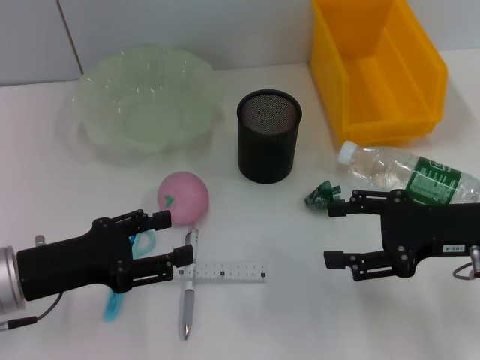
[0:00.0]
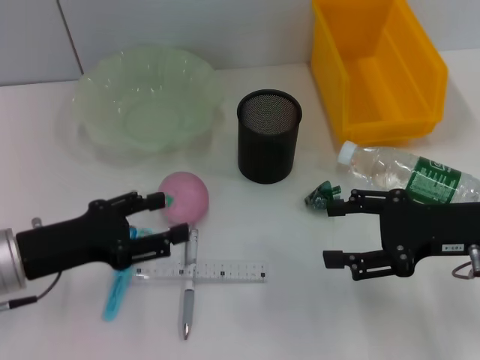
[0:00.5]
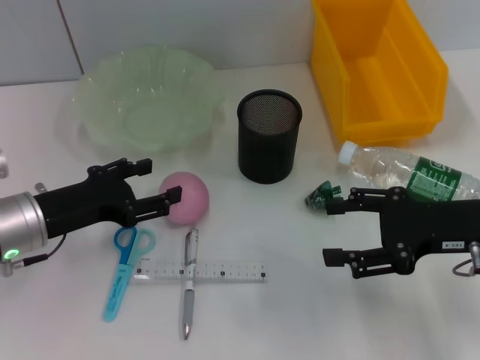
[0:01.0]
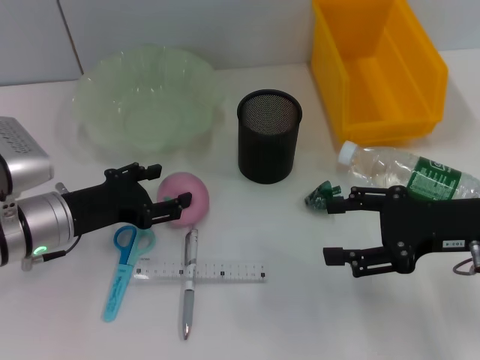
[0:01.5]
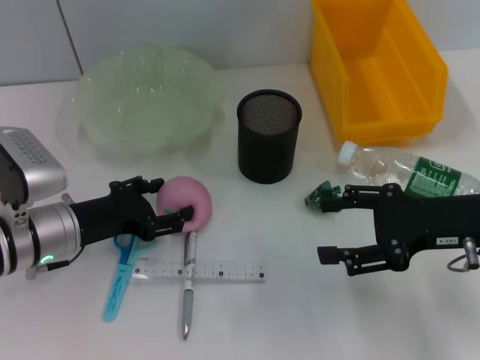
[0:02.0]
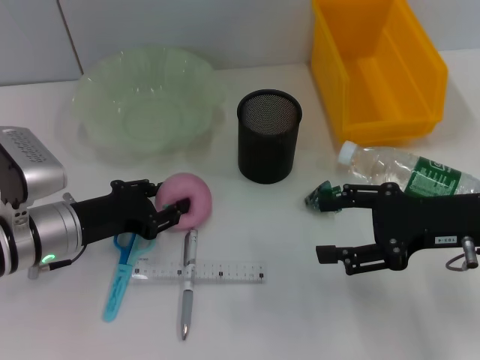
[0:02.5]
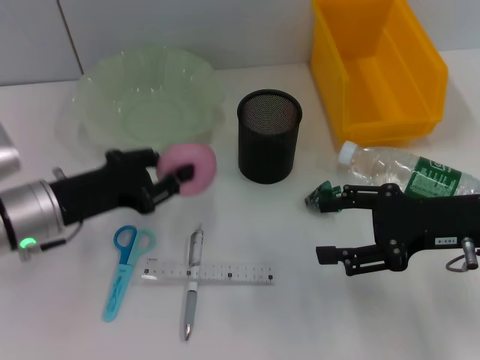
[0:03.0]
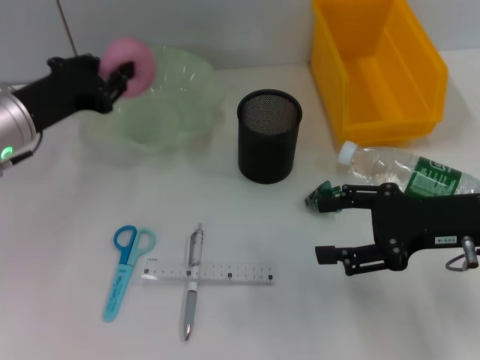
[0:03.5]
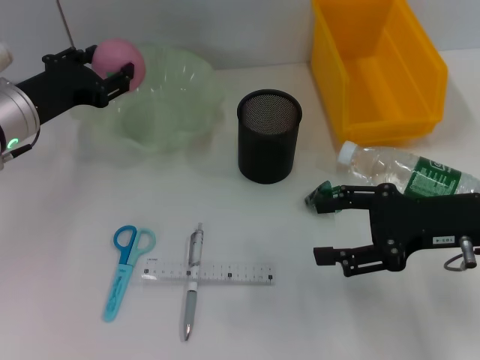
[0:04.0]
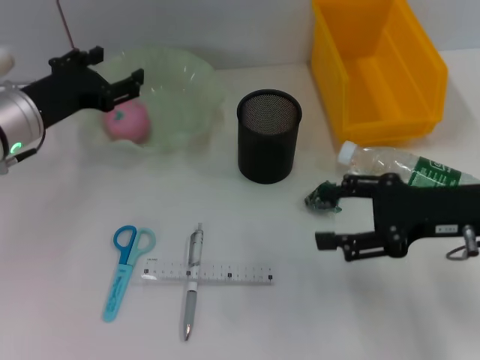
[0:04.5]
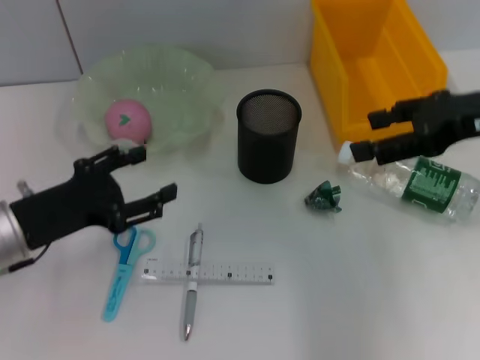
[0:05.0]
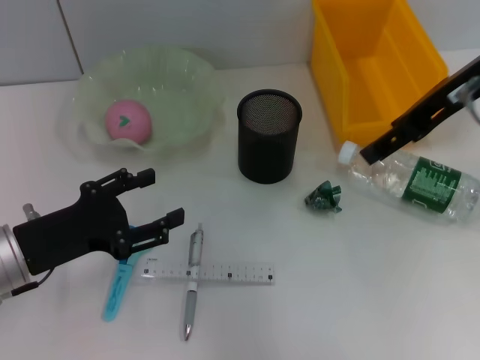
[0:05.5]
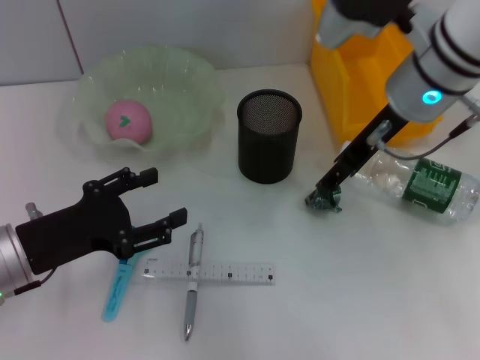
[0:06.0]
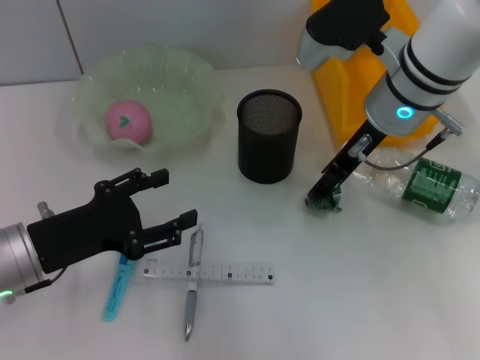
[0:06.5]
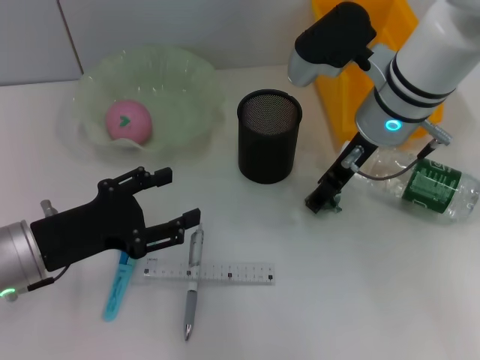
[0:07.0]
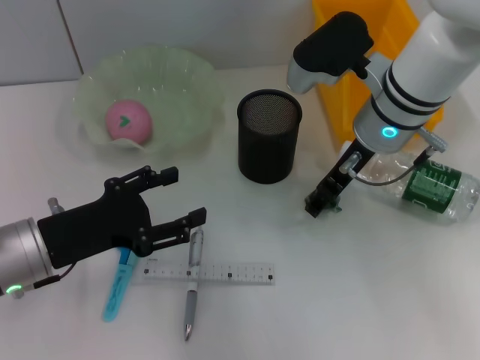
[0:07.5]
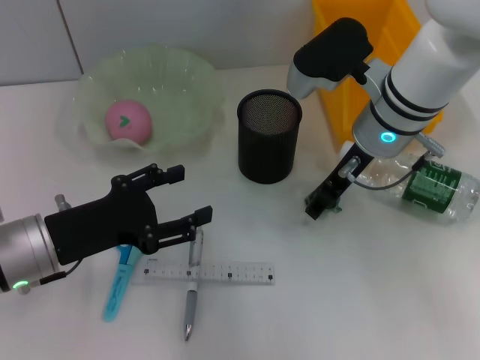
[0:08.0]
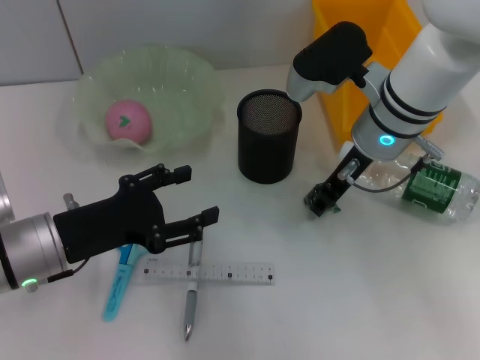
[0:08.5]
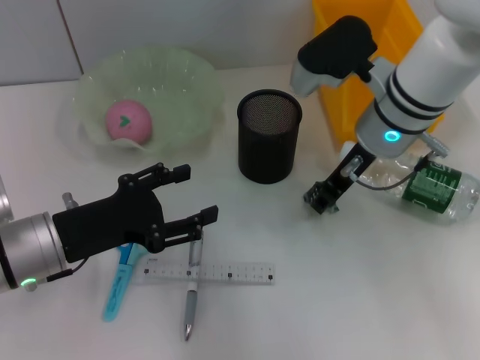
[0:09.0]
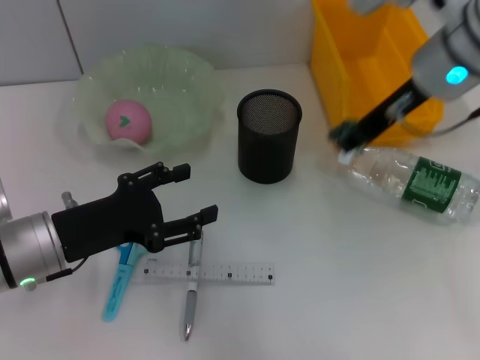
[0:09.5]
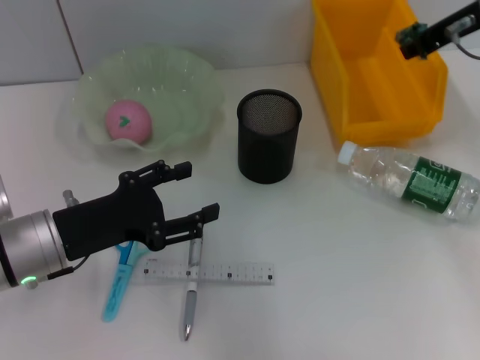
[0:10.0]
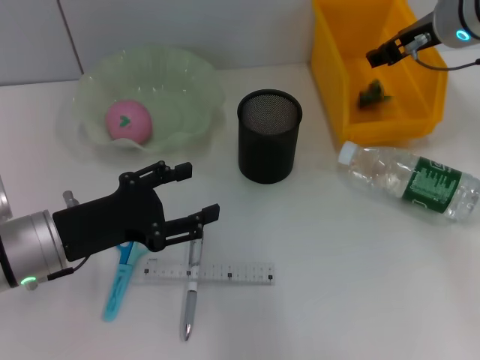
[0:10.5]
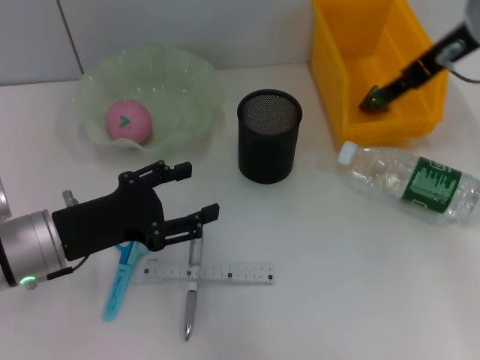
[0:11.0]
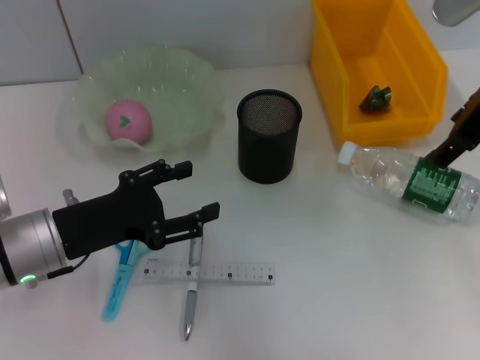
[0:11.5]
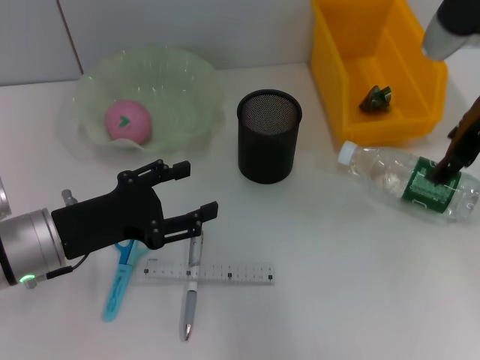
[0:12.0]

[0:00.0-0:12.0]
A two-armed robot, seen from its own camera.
Step, 0:00.0 to 0:02.0: Grab the peach with the left hand.
Step, 0:03.0 to 0:04.5: Place the peach into the fruit bowl with the left hand.
Step, 0:05.0 to 0:08.5: Grab the plastic with the right hand.
Step, 0:09.0 to 0:11.0: Place the plastic into the trash can with the right hand.
0:00.0 to 0:02.0: The left gripper shifts some 5 cm forward.
0:02.0 to 0:04.0: The left gripper is displaced forward and upward by roughly 10 cm, and closes up.
0:04.0 to 0:06.0: The left gripper heads backward, covering approximately 15 cm, and opens its fingers. Meanwhile the right gripper shifts some 15 cm to the left, forward and upward.
0:06.0 to 0:08.0: The right gripper is displaced downward by about 5 cm.
0:08.0 to 0:10.0: The right gripper is displaced upward and to the right by about 15 cm, and closes up.
0:10.0 to 0:12.0: The right gripper ends up about 5 cm from where it was, and opens.

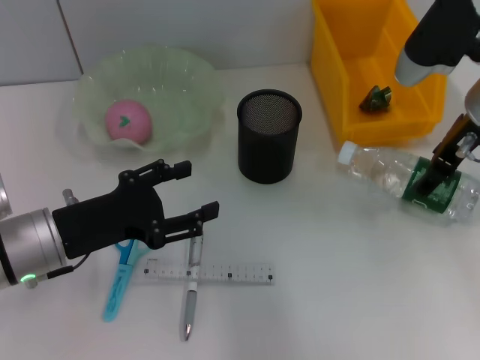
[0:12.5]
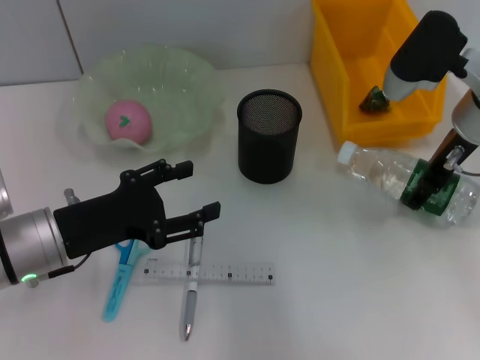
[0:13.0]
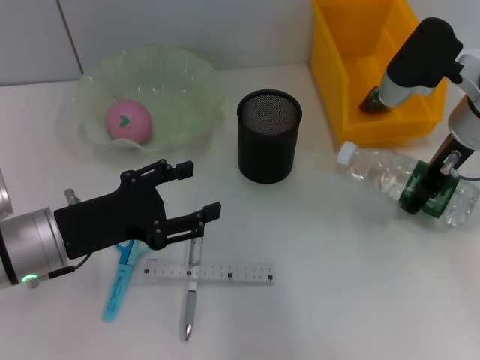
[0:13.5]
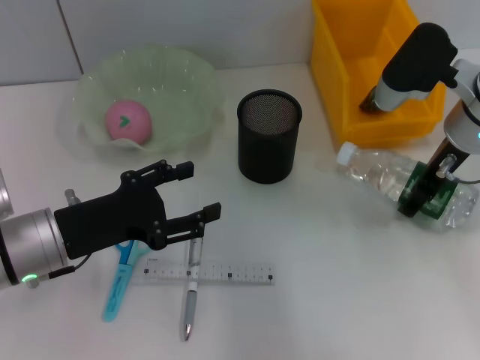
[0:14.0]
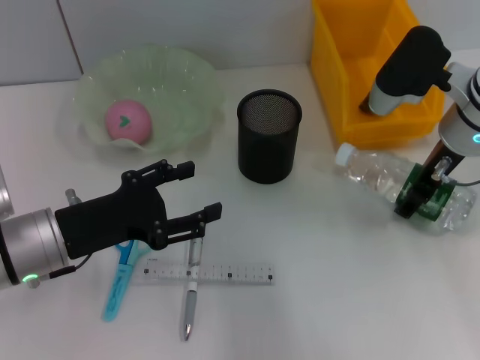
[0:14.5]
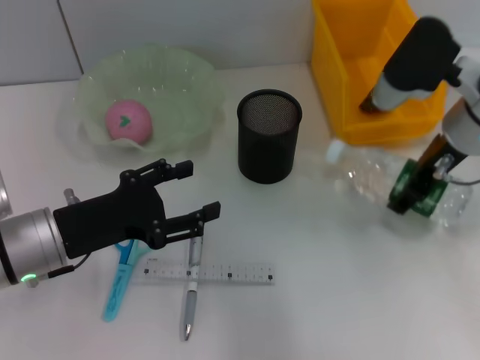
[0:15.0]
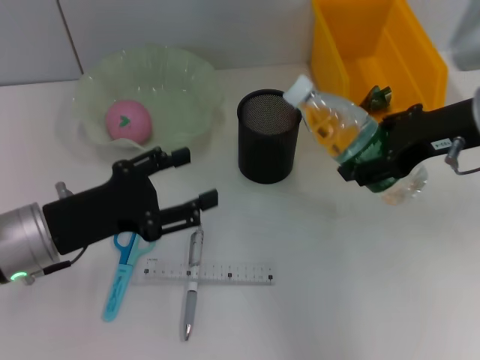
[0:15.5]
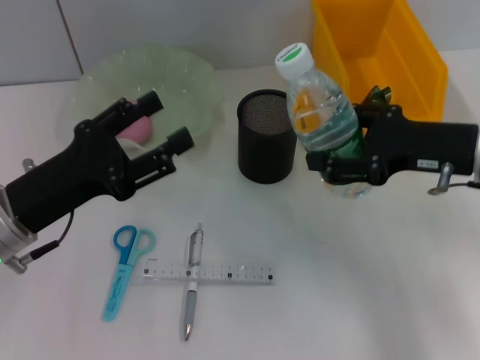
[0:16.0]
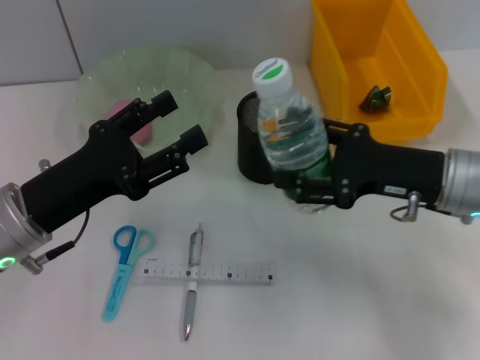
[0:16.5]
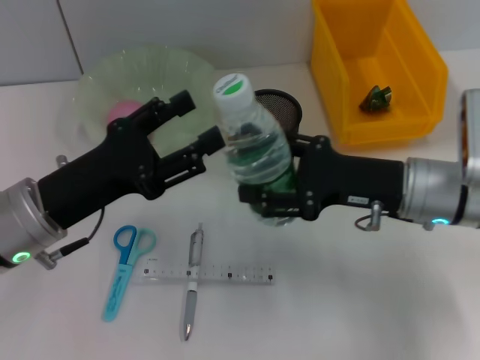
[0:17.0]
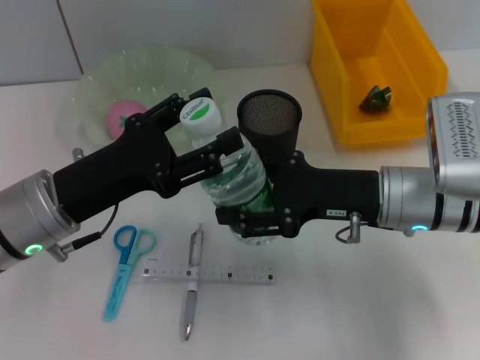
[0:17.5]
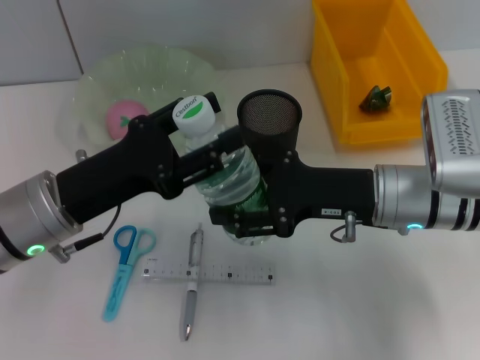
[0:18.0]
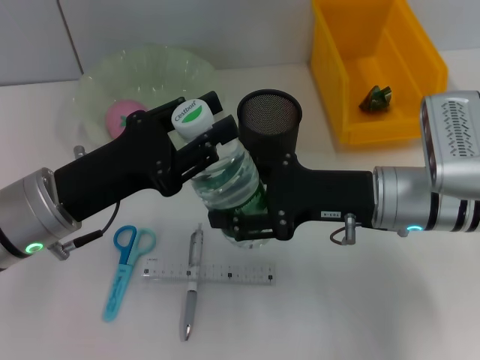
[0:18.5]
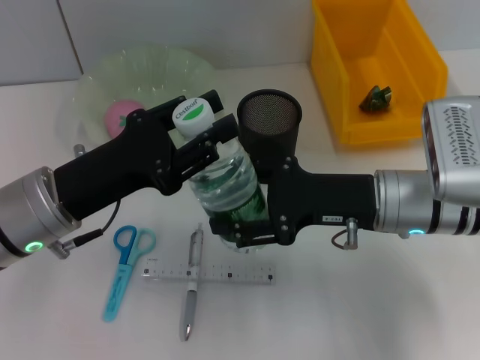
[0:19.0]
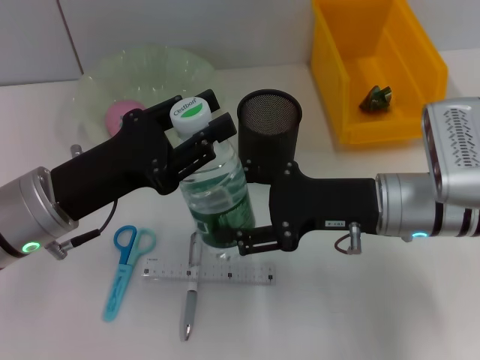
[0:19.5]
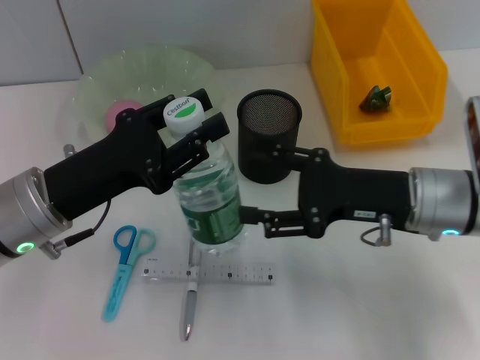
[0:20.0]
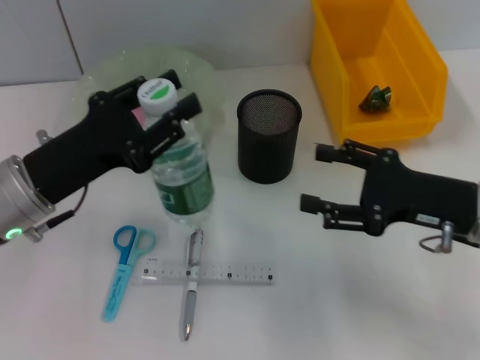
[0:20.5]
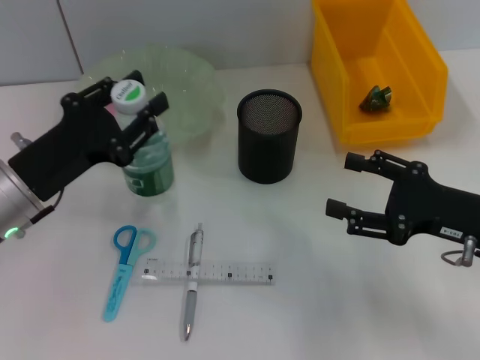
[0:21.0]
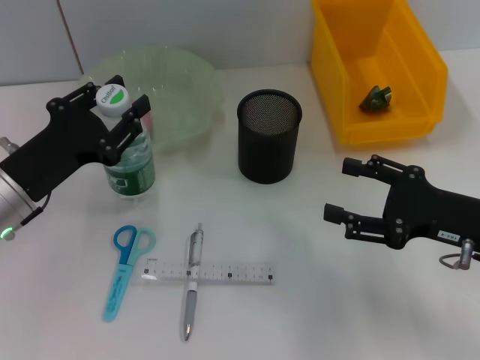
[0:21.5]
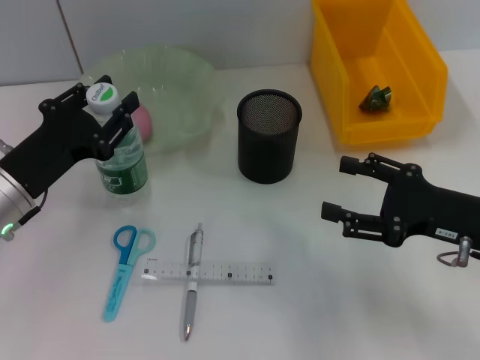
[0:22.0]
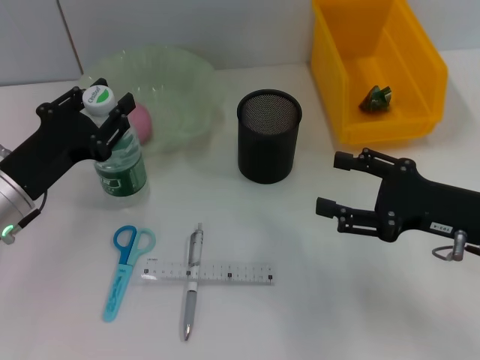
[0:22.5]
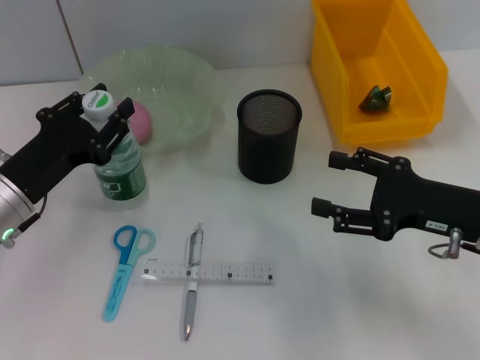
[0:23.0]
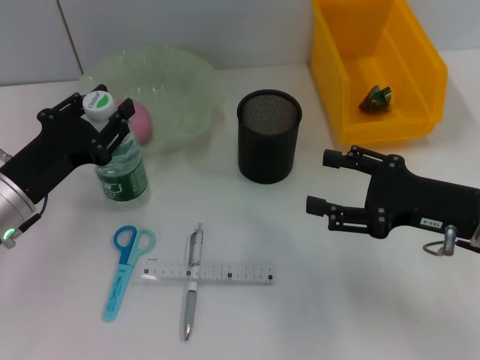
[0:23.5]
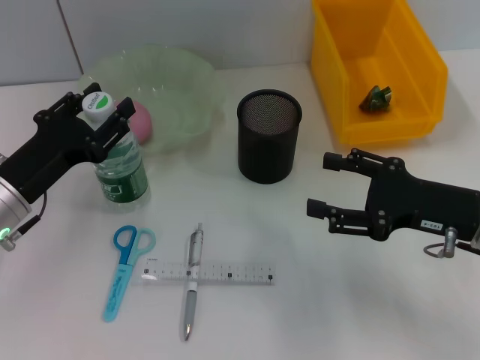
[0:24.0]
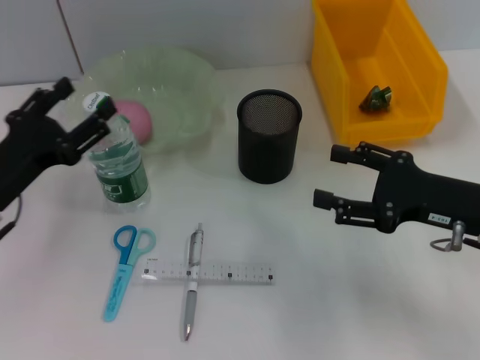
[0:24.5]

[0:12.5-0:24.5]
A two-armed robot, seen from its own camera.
Step, 0:12.5 to 0:14.0: Grab the water bottle with the right hand.
Step, 0:14.5 to 0:18.5: Pass the water bottle from the right hand to the left hand.
Step, 0:19.0 to 0:23.5: Place the water bottle on the table with the left hand.
0:12.5 to 0:14.5: The grippers stay close to where they were, moving slightly.
0:14.5 to 0:16.5: The right gripper is displaced backward by approximately 10 cm.
0:16.5 to 0:18.5: The right gripper goes roughly 5 cm to the left. Meanwhile the left gripper closes.
0:18.5 to 0:20.5: The right gripper moves to the right, roughly 10 cm.
0:22.5 to 0:24.5: The left gripper opens its fingers.

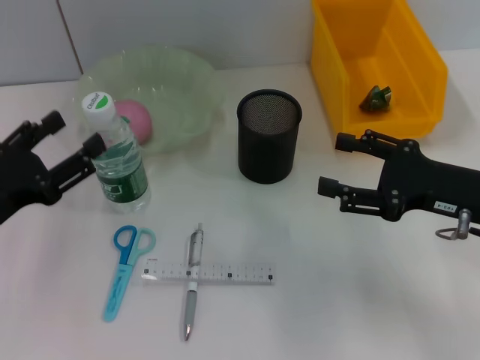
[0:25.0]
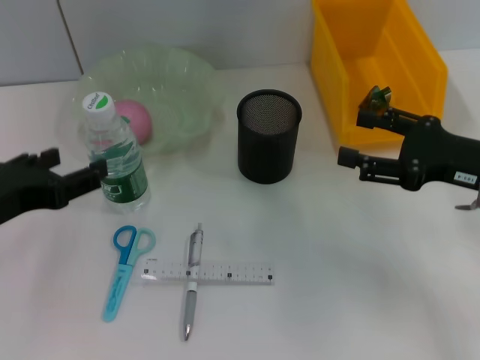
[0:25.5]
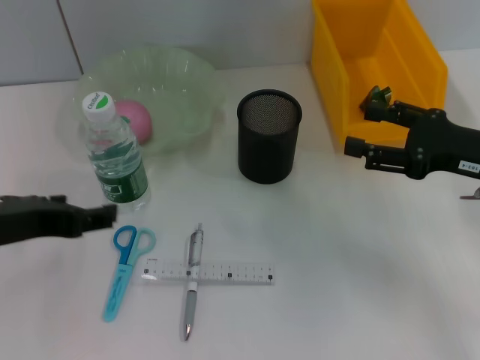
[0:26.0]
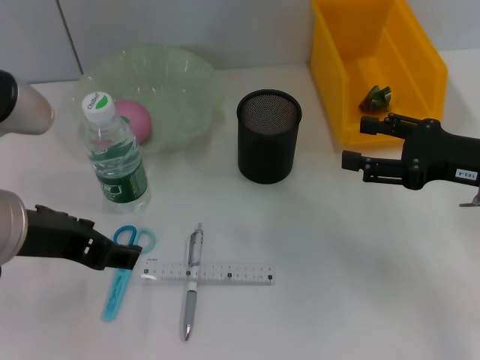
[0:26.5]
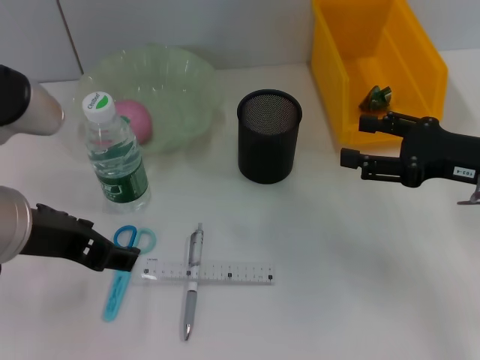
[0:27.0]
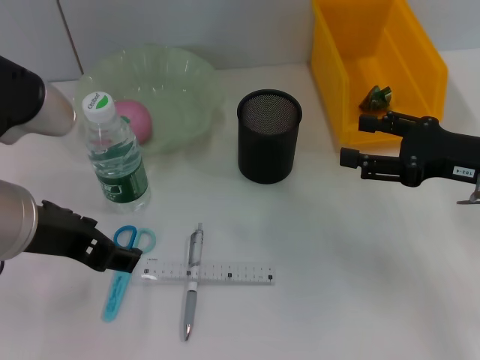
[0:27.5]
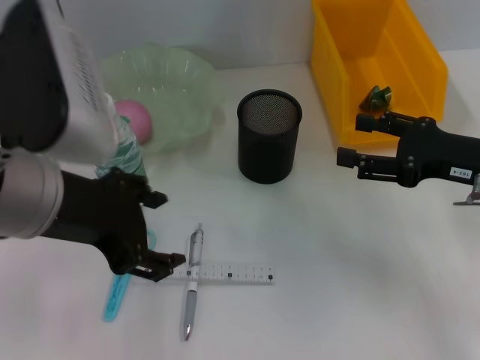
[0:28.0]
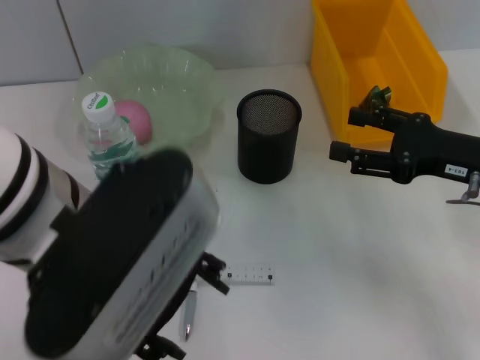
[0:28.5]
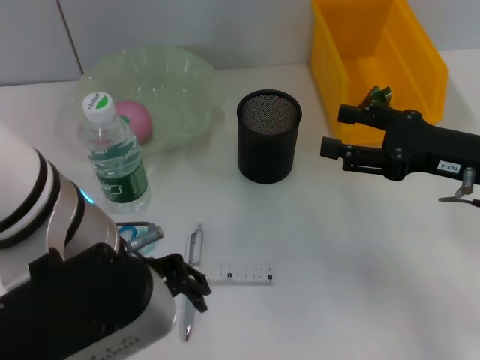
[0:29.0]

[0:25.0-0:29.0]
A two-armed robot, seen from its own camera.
0:25.0 to 0:27.0: The left gripper moves upward and to the right, approximately 15 cm.
0:27.0 to 0:29.0: The left gripper goes some 5 cm to the right.
